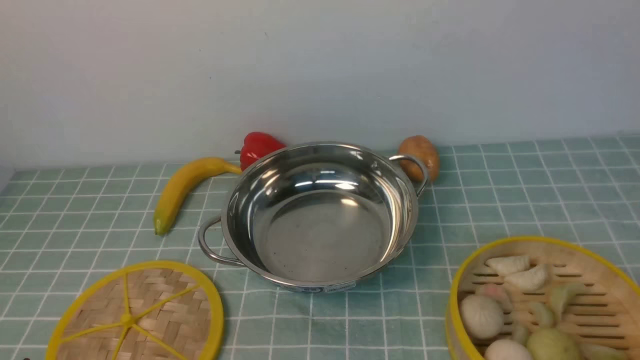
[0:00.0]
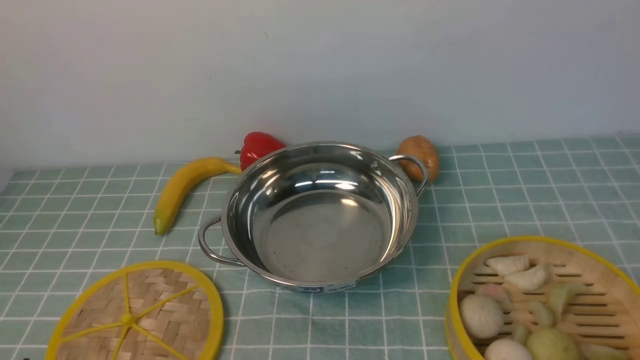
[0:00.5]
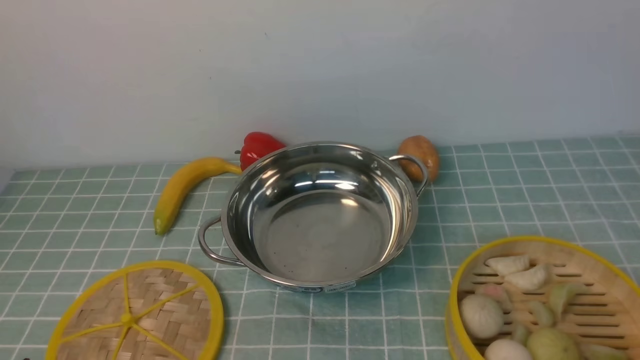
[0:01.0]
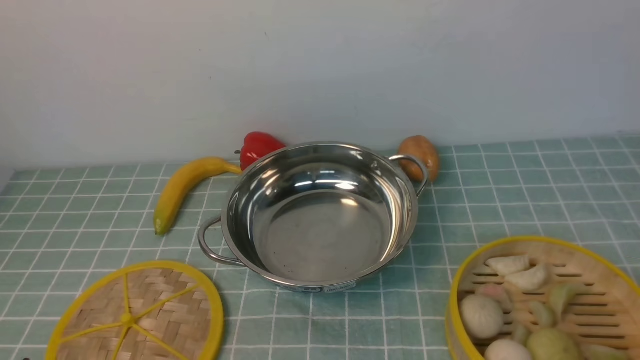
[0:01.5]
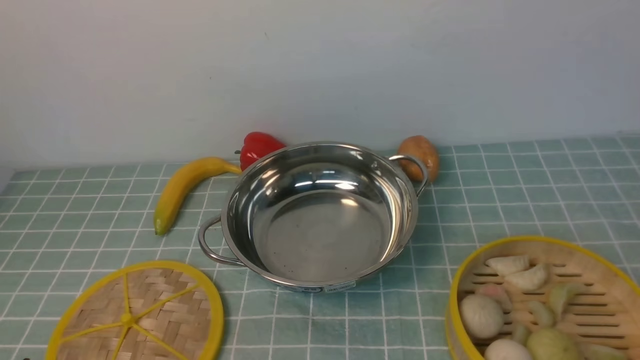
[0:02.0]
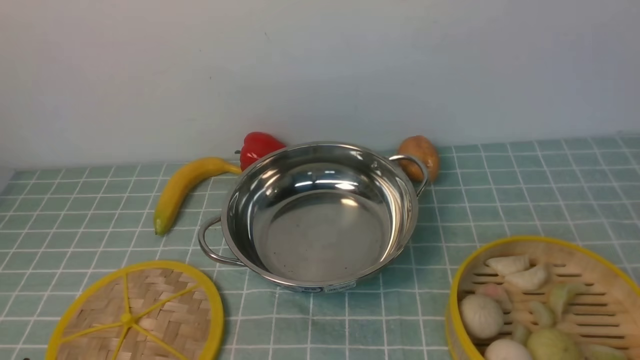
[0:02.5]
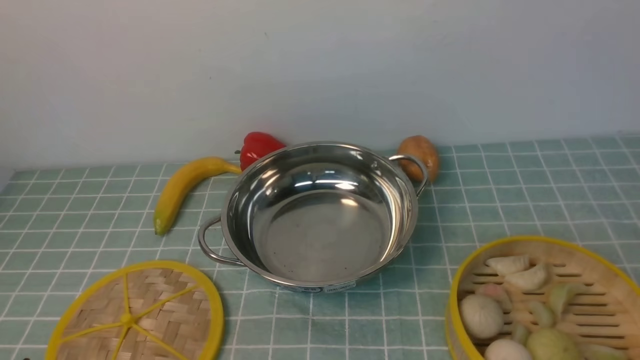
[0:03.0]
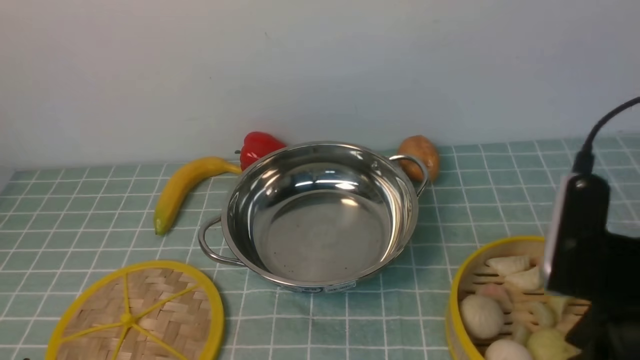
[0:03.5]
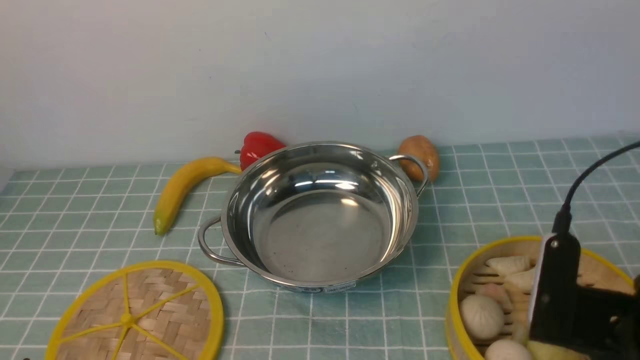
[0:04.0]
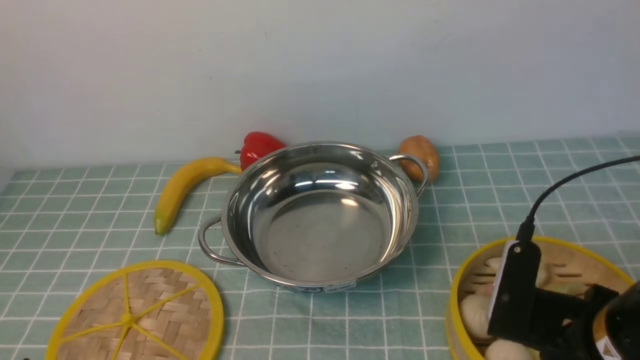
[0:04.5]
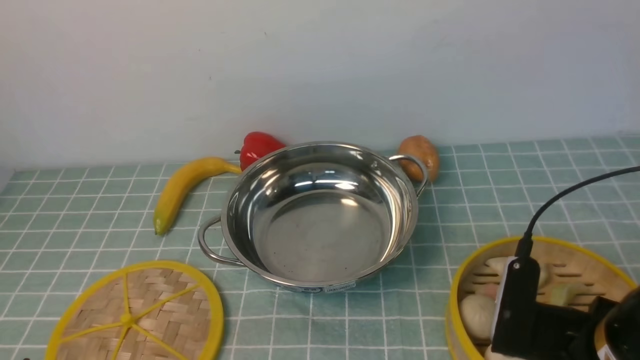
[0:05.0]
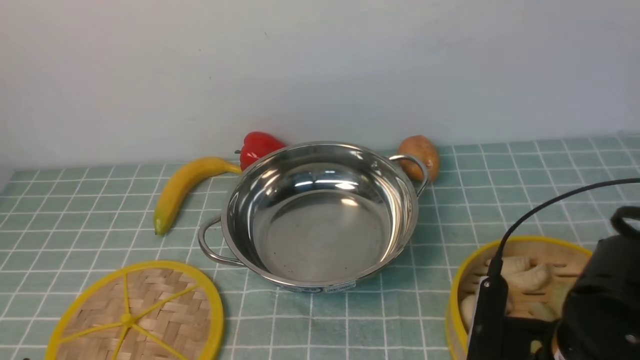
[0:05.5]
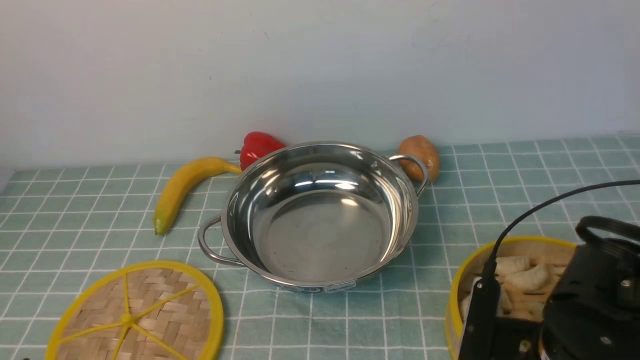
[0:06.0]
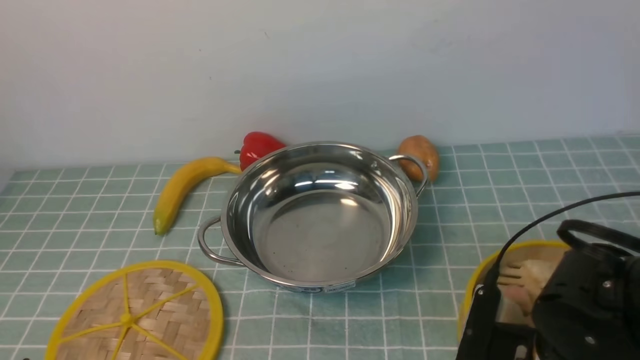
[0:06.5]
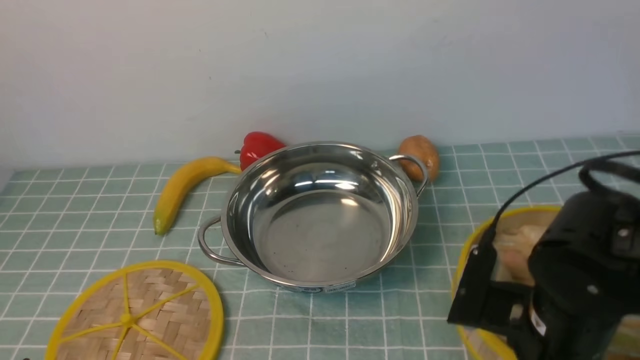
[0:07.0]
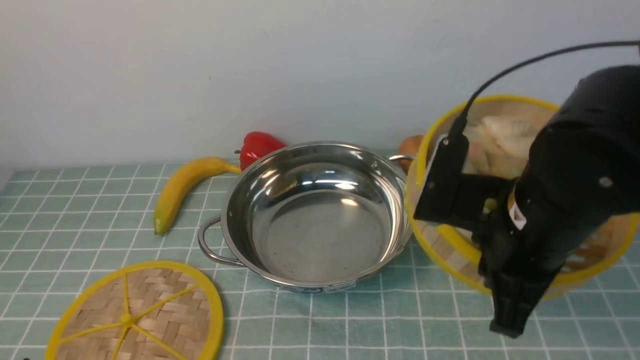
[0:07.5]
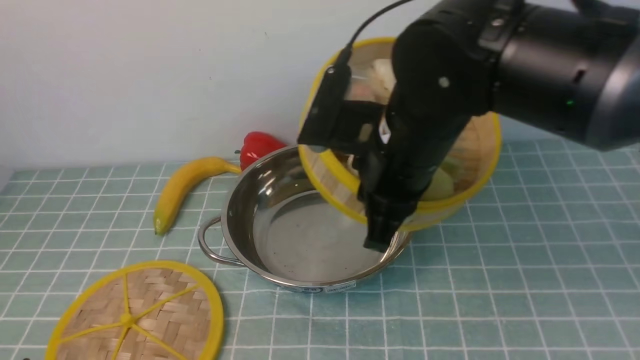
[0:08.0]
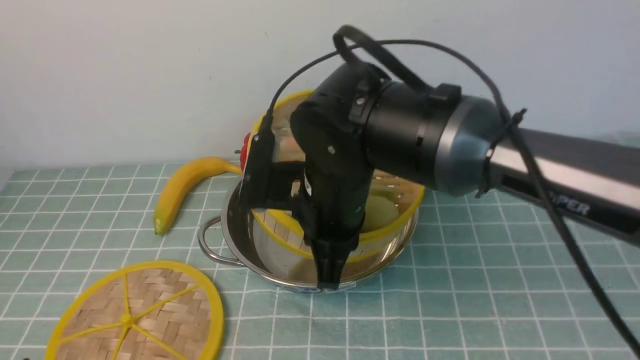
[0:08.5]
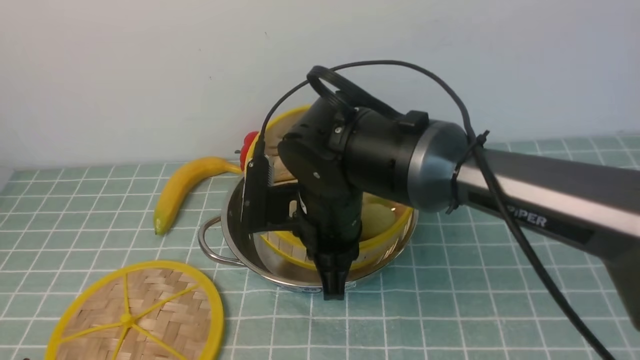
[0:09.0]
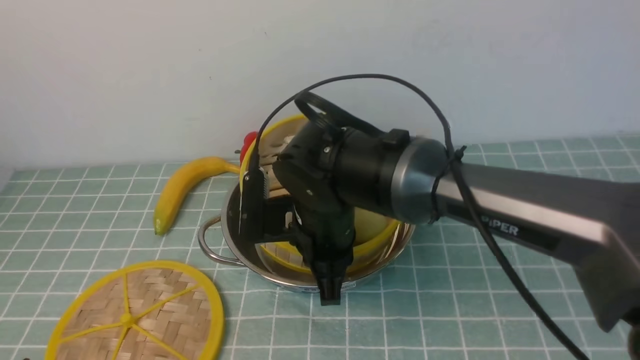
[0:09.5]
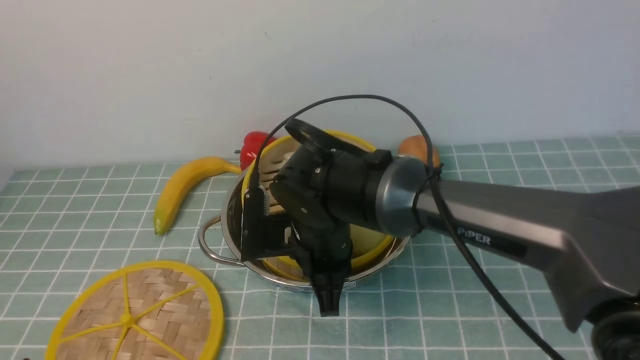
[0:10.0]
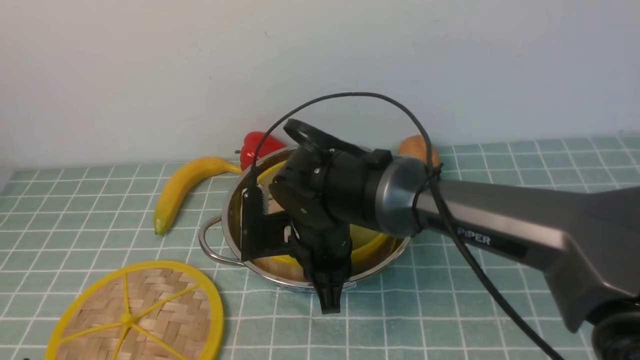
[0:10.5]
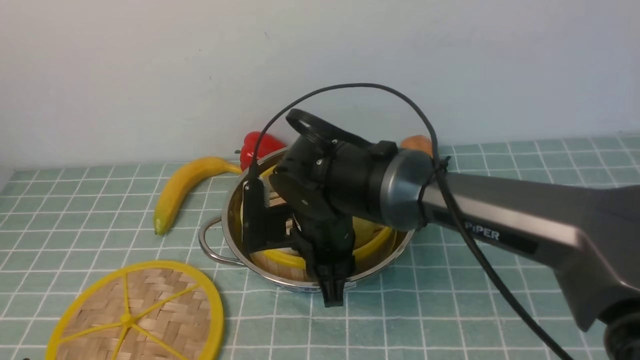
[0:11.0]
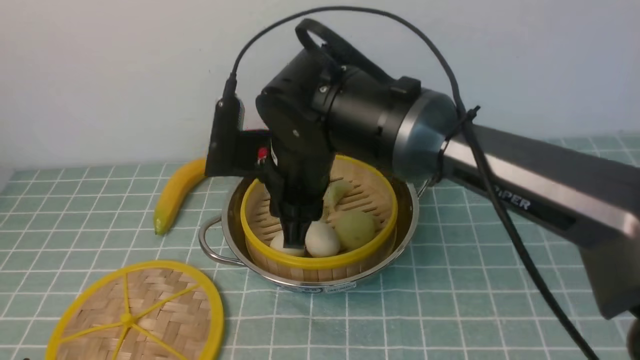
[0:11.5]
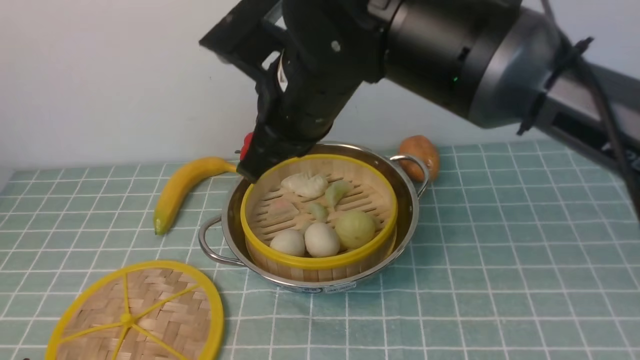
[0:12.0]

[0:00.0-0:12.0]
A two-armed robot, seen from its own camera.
Task of the whole recording: place the steamer in the pot on the blue tablecloth, and put the lid on the steamer.
Step, 0:00.0 to 0:07.0: use the right arm to lift the steamer closest to it.
Step, 0:07.5 to 0:11.5: use the right arm to put the steamer into the iron steamer pot in the middle.
0:02.0 to 0:04.0: The right gripper is displaced forward, downward and to the left by some 20 cm, and closes.
0:04.0 to 0:06.0: The right gripper heads downward, covering about 10 cm, and opens.
0:06.0 to 0:08.0: The right gripper goes some 20 cm upward, to the left and forward, and closes up.
0:08.0 to 0:10.0: The right gripper goes roughly 15 cm downward and to the left.
0:10.0 to 0:12.0: The right gripper goes approximately 20 cm upward, and opens, then closes again.

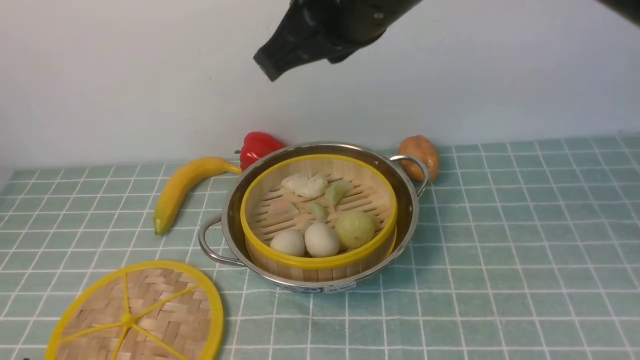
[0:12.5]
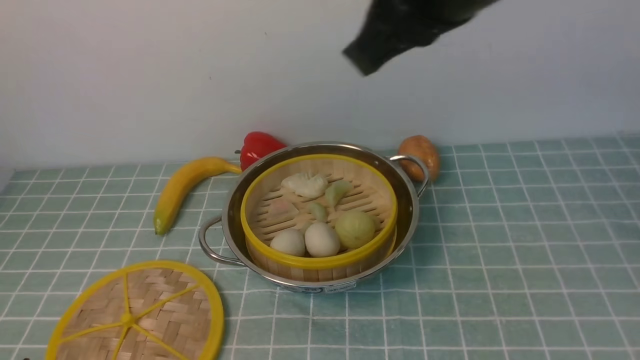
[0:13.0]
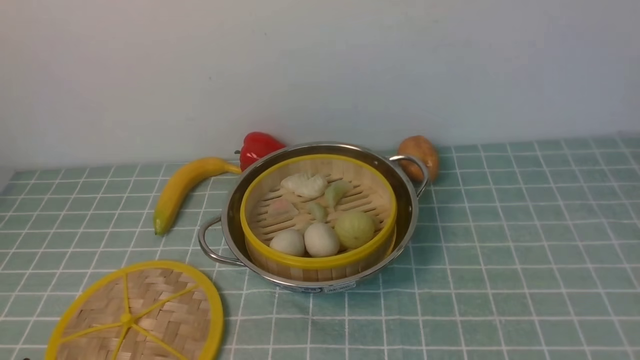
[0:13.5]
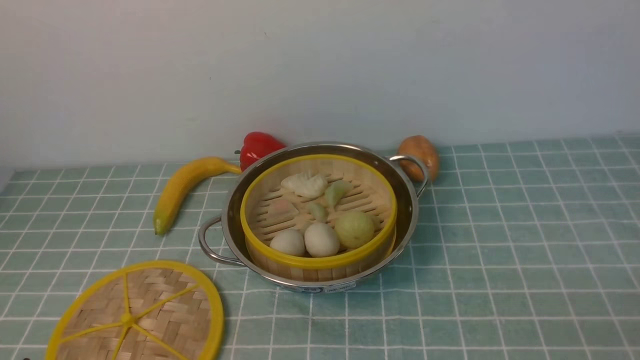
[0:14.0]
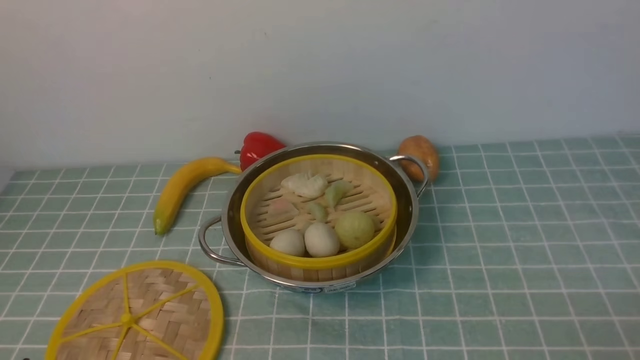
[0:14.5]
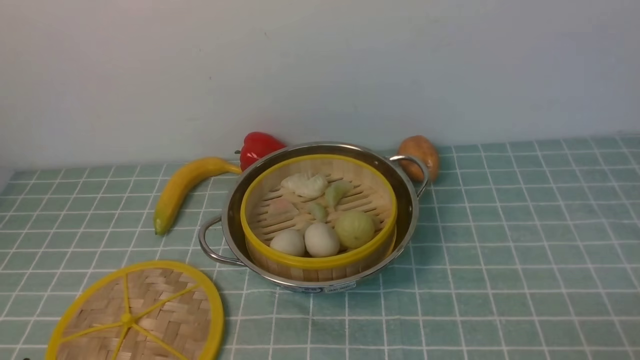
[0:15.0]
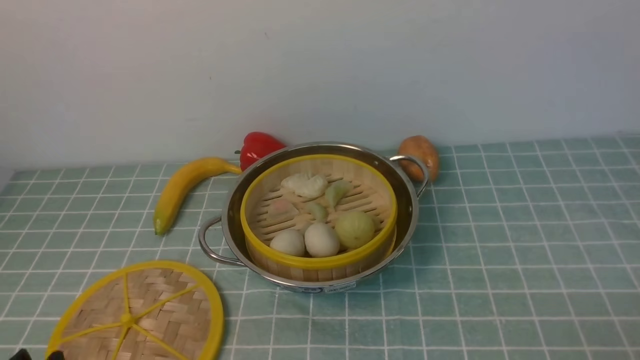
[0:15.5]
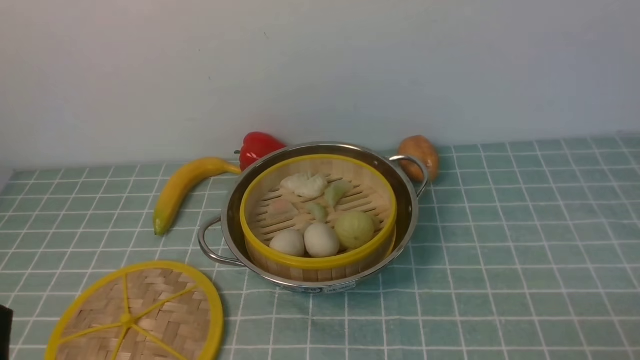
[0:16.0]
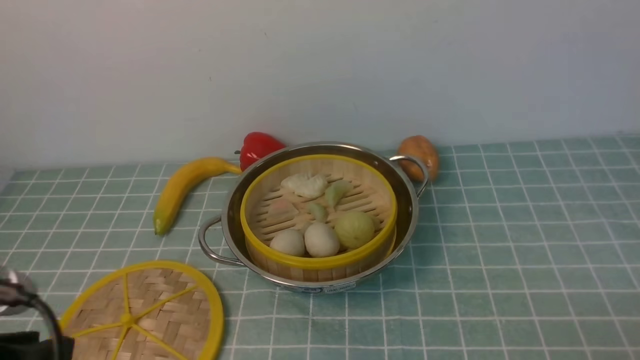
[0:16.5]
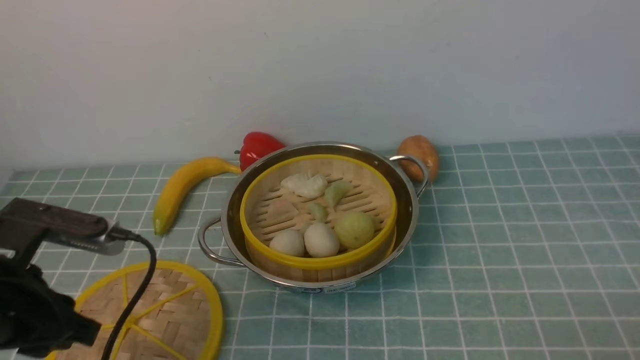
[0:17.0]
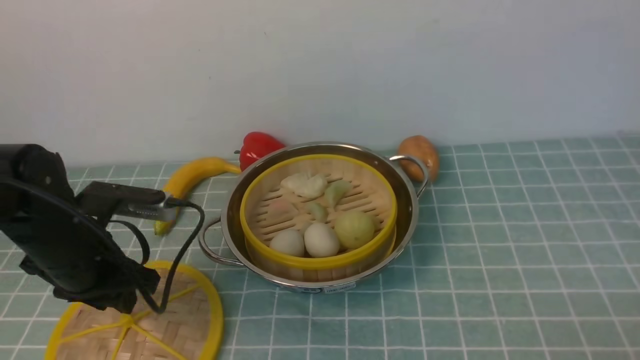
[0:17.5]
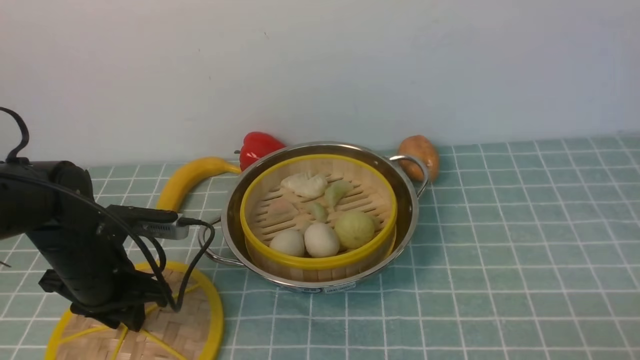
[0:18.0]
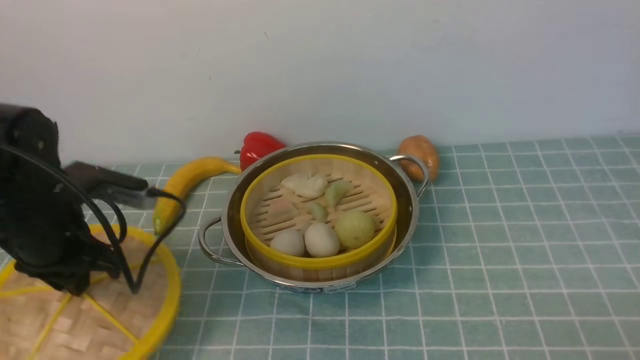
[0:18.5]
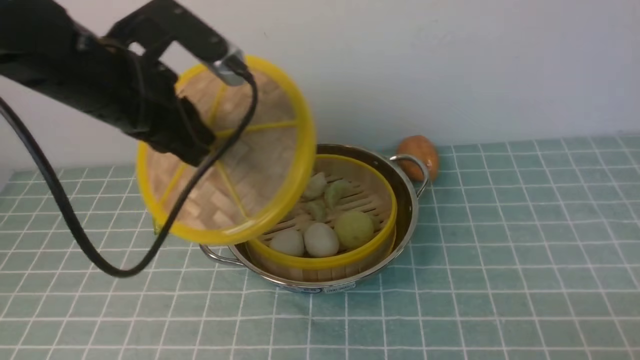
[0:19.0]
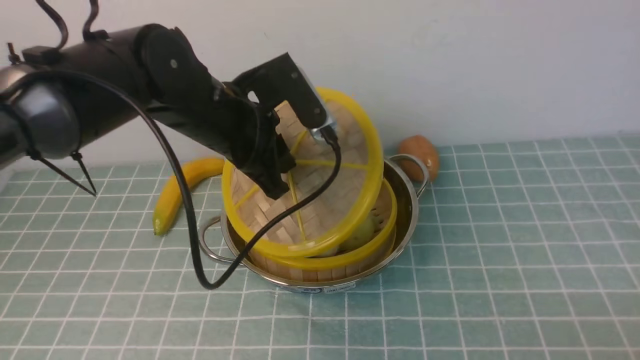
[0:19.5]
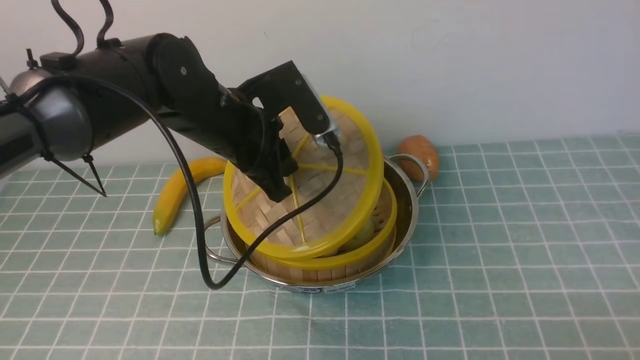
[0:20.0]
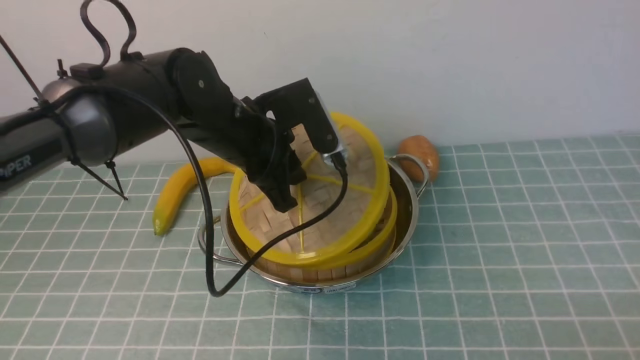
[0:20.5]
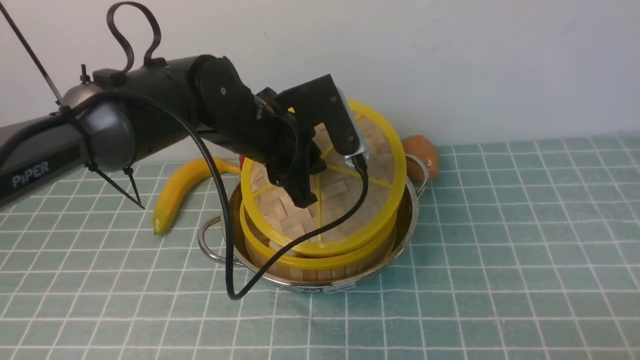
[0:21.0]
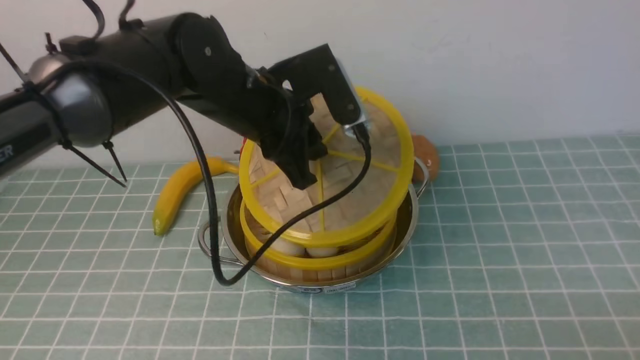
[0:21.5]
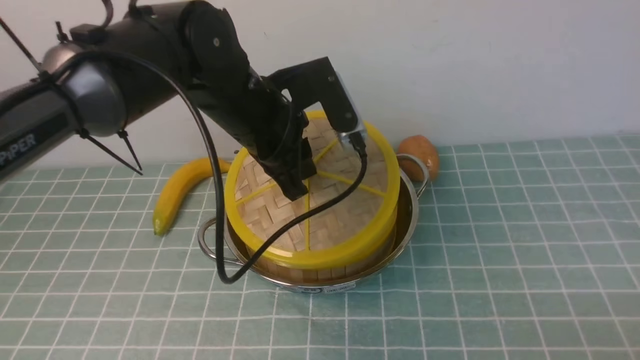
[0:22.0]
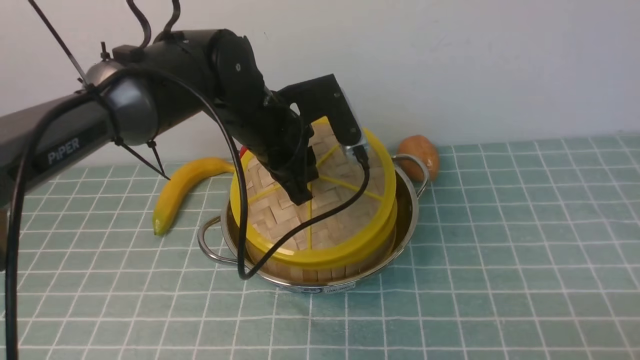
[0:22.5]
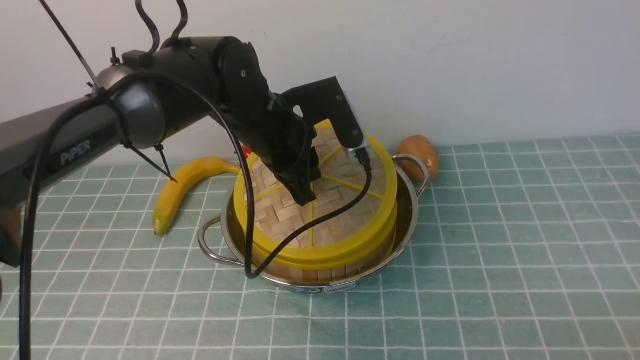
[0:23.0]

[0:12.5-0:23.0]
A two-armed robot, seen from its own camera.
Task of the whole recording: place the steamer in the pot on the blue tablecloth, and put the lid on the steamer.
Step, 0:12.5 to 0:18.5: use the left arm to lift the lid of the steamer.
0:12.5 to 0:14.5: The right gripper is displaced to the right, downward and backward by about 40 cm, and opens.
0:14.5 to 0:16.5: The left gripper shifts some 10 cm upward.
0:16.5 to 0:19.0: The left gripper goes some 25 cm forward, and closes up.
0:19.0 to 0:21.0: The left gripper moves to the right and downward, about 15 cm.
0:21.0 to 0:23.0: The grippers move only a little.
